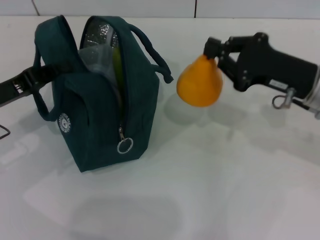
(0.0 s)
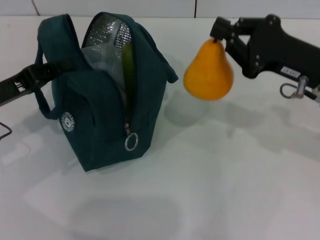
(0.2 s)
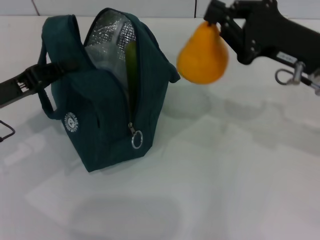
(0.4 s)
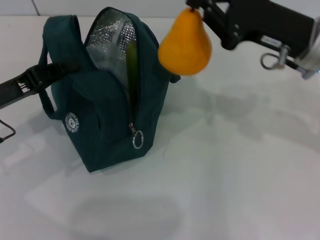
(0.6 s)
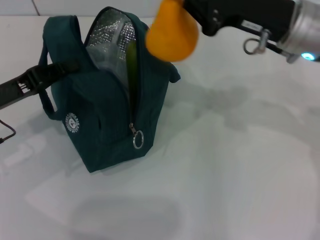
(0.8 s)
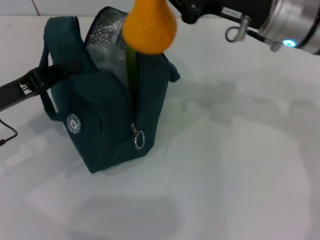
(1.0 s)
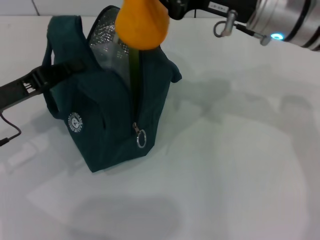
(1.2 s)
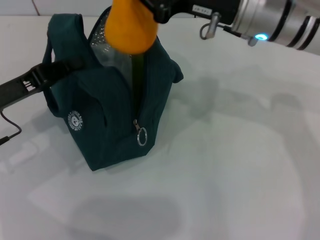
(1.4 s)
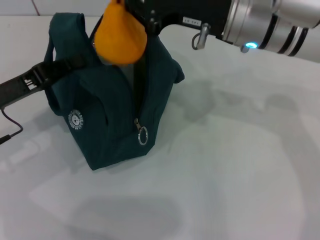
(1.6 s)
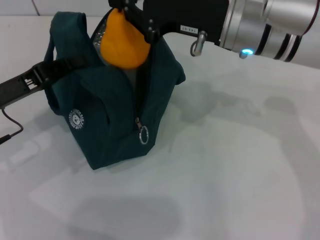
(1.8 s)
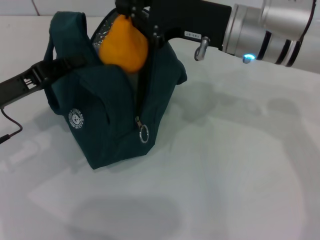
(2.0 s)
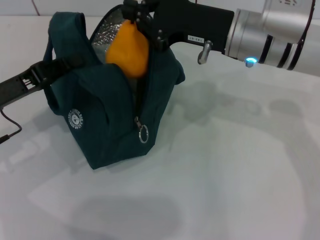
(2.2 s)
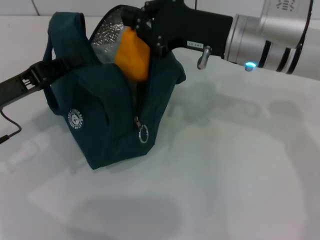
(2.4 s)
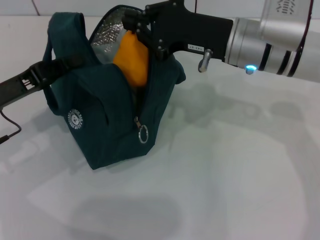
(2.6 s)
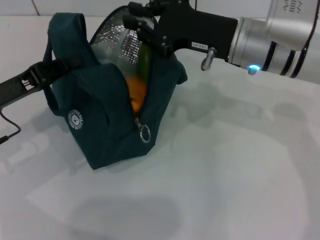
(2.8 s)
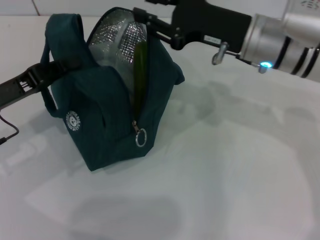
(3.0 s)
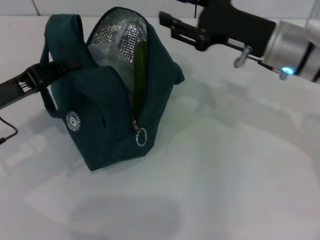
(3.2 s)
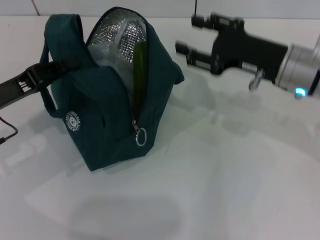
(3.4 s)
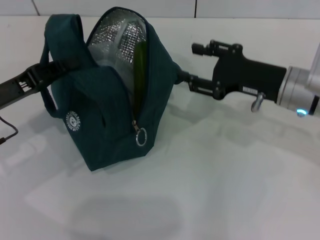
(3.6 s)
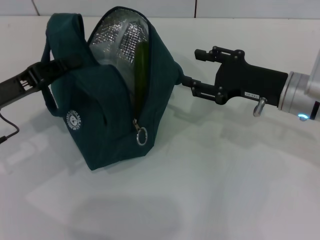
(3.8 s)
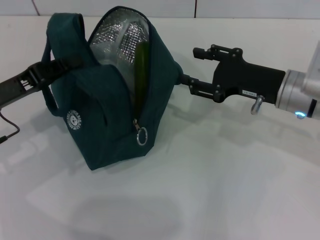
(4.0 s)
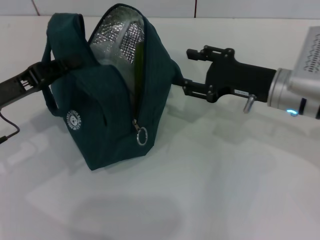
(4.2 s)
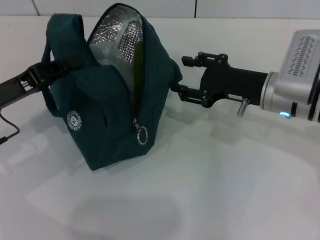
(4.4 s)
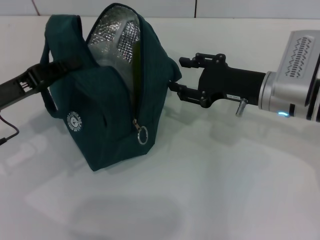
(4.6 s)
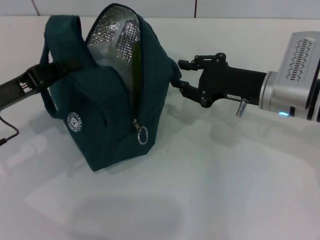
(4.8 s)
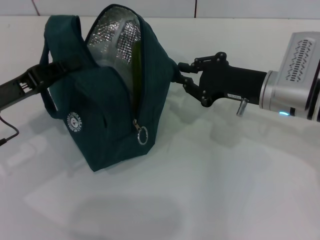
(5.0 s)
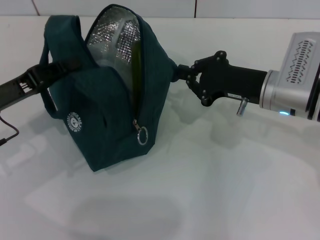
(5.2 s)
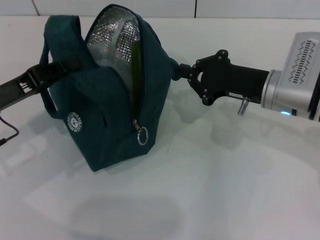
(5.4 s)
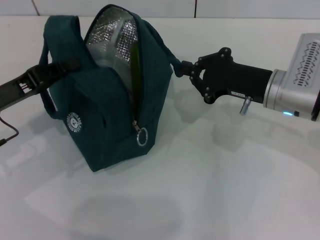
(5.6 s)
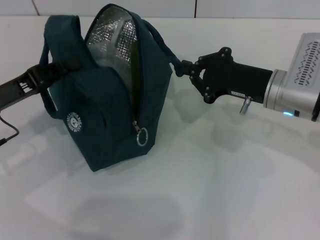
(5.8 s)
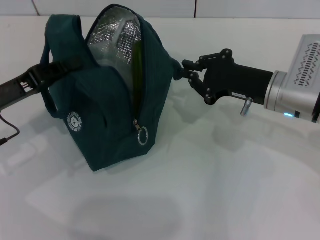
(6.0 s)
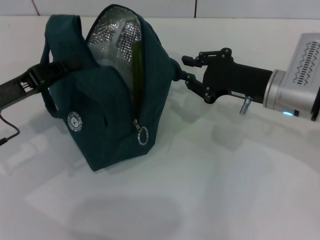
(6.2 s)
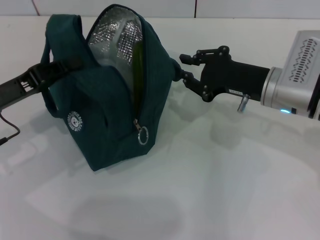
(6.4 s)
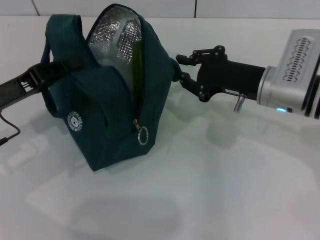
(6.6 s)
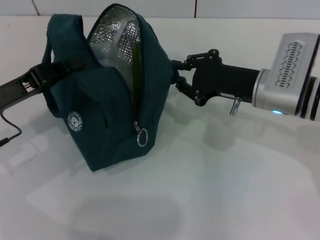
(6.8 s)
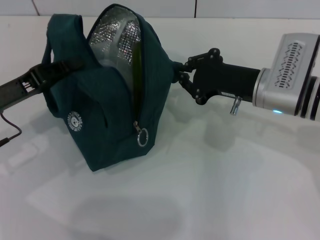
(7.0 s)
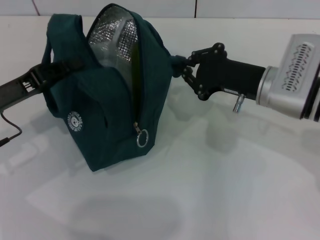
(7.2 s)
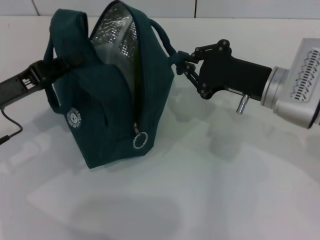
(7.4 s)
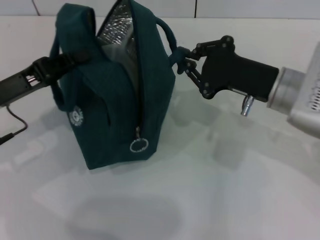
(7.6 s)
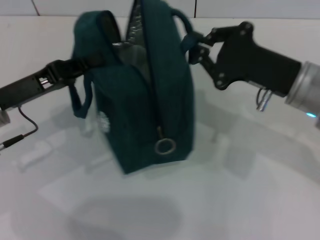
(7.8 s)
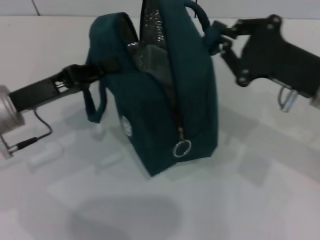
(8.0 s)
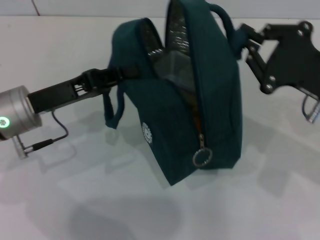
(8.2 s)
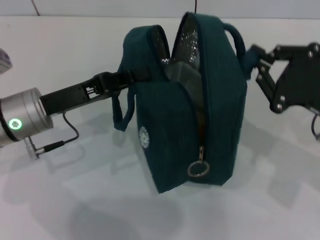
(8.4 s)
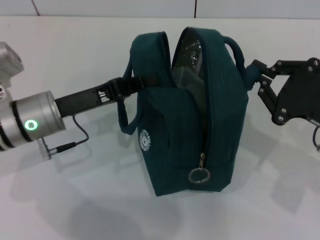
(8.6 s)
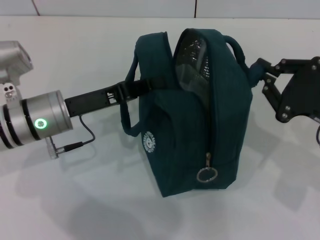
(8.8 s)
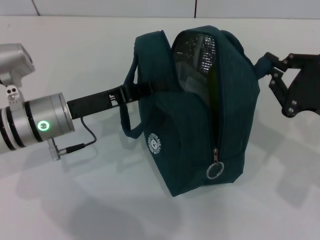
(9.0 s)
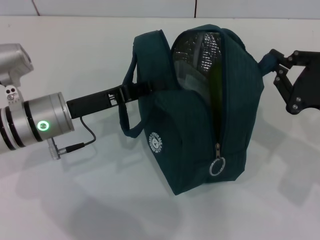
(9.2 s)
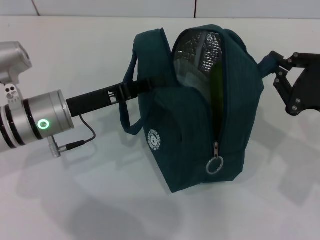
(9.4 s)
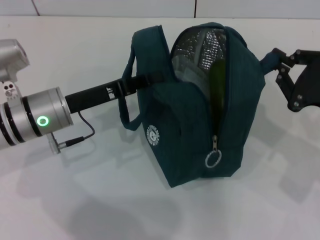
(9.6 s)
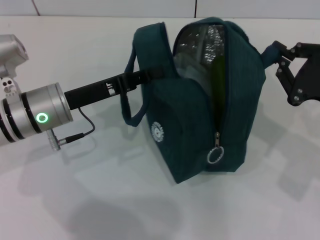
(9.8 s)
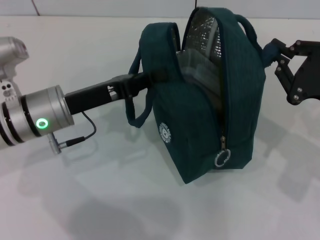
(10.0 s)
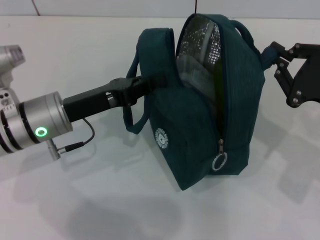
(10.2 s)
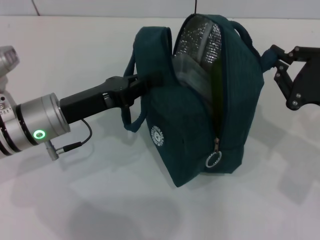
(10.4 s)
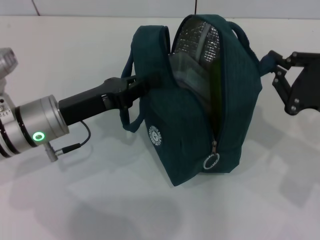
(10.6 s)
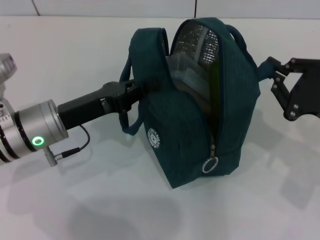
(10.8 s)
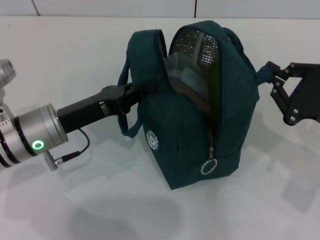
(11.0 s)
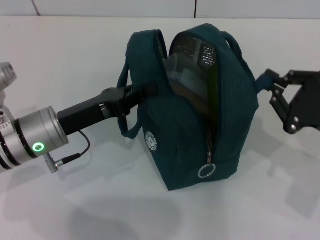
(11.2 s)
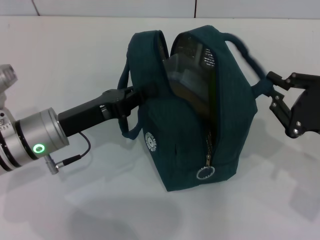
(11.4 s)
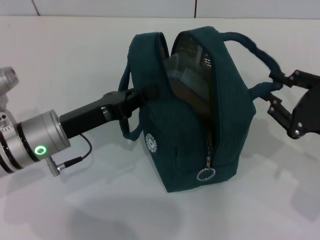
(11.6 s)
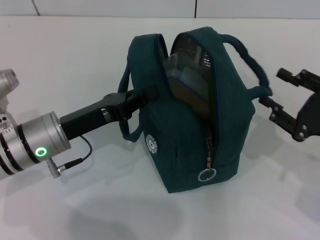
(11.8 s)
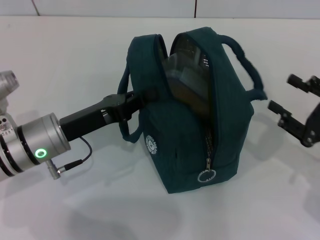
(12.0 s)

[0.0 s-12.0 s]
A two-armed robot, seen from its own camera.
0.0 to 1.6 s: The right gripper shifts roughly 15 cm to the left and upward.
1.6 to 3.0 s: There are only small adjustments of the grippers.
3.0 to 4.4 s: The right gripper goes about 5 cm downward, and opens up.
4.4 to 6.0 s: The right gripper closes.
6.0 to 7.6 s: The grippers move only a little.
7.6 to 9.0 s: The left gripper shifts roughly 10 cm to the right. Meanwhile the right gripper shifts some 10 cm to the right and backward.
9.0 to 10.4 s: There are only small adjustments of the grippers.
10.4 to 12.0 s: The right gripper shifts by approximately 5 cm, and opens up.

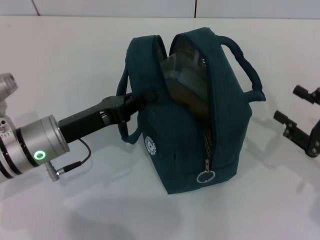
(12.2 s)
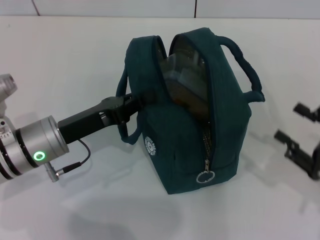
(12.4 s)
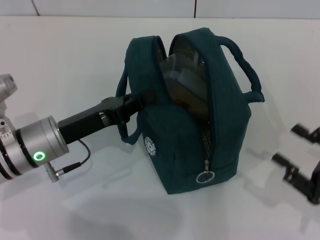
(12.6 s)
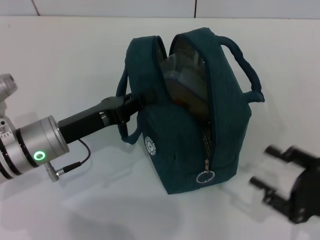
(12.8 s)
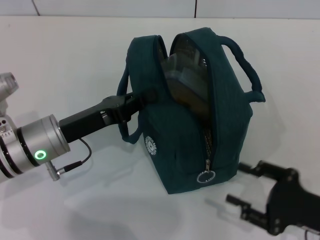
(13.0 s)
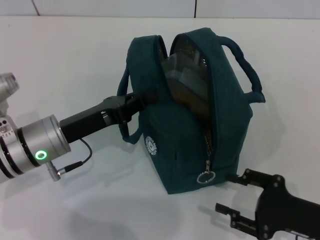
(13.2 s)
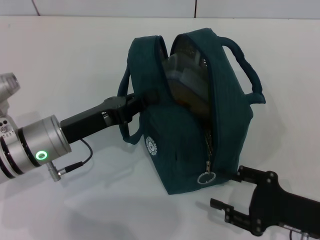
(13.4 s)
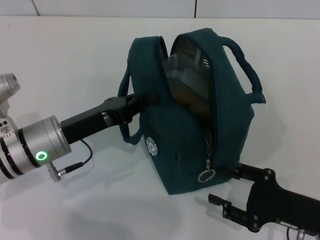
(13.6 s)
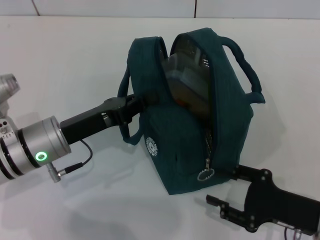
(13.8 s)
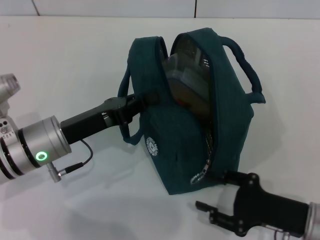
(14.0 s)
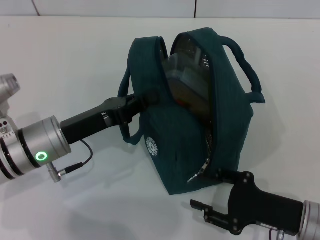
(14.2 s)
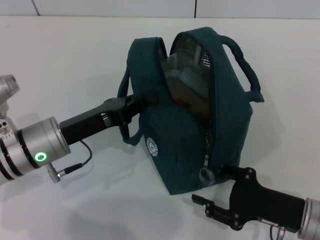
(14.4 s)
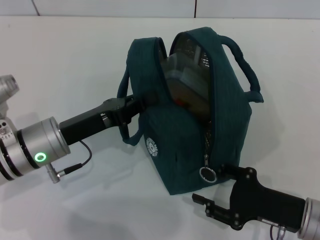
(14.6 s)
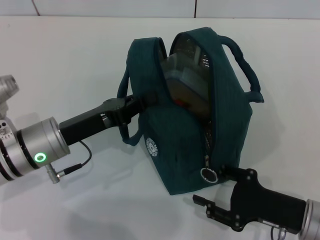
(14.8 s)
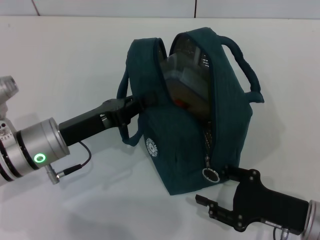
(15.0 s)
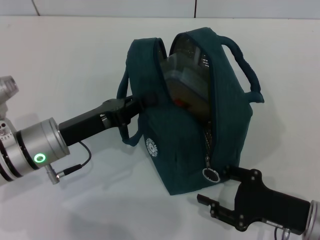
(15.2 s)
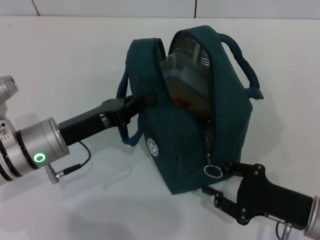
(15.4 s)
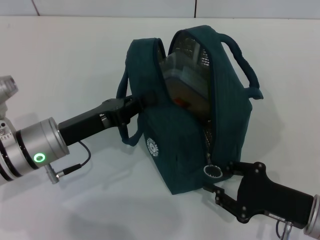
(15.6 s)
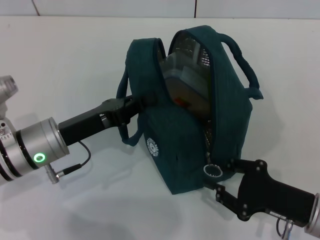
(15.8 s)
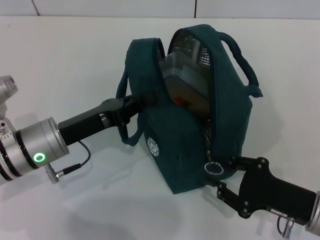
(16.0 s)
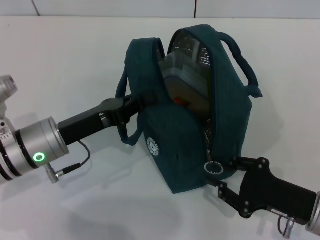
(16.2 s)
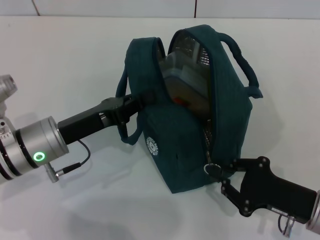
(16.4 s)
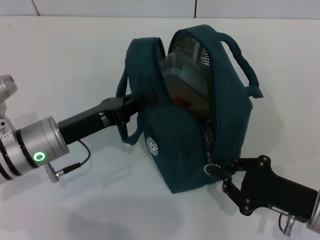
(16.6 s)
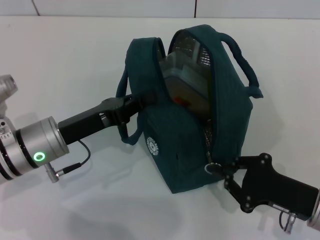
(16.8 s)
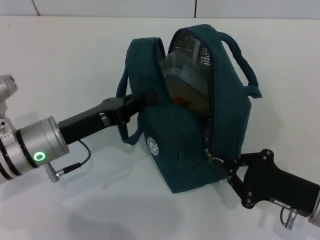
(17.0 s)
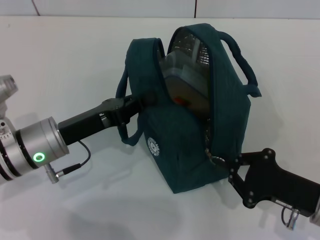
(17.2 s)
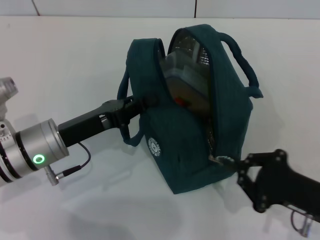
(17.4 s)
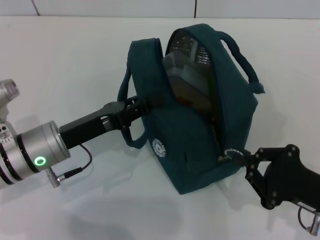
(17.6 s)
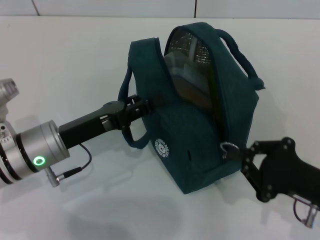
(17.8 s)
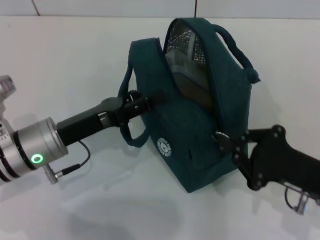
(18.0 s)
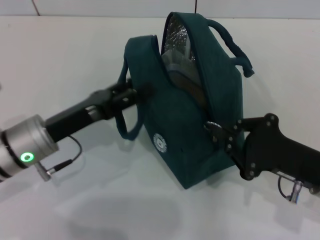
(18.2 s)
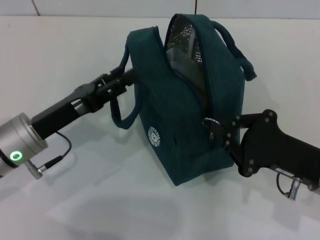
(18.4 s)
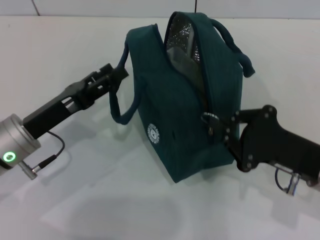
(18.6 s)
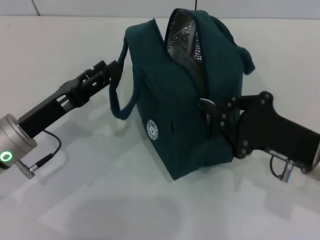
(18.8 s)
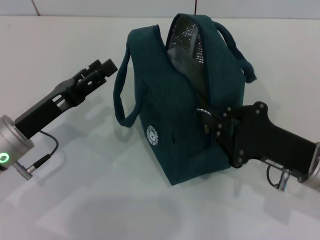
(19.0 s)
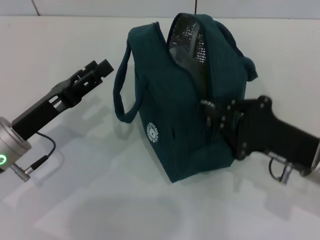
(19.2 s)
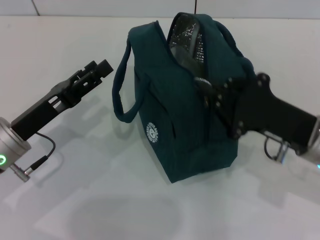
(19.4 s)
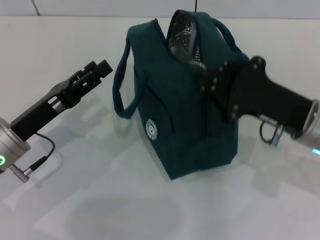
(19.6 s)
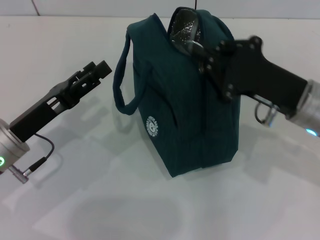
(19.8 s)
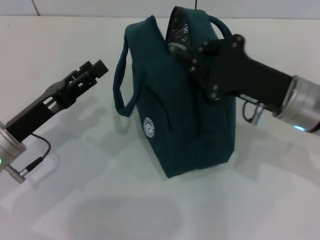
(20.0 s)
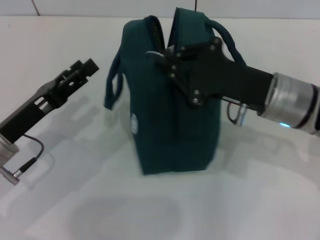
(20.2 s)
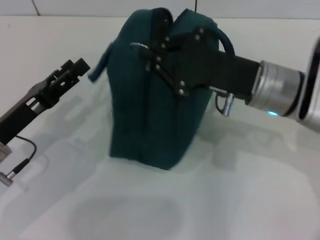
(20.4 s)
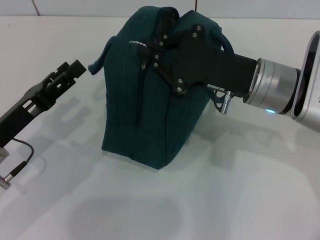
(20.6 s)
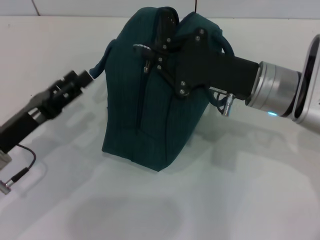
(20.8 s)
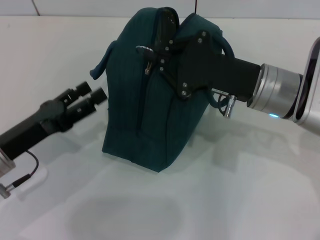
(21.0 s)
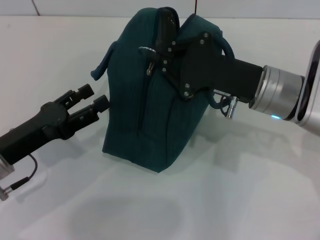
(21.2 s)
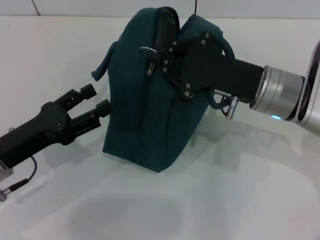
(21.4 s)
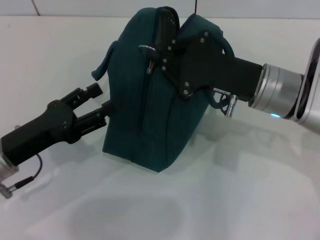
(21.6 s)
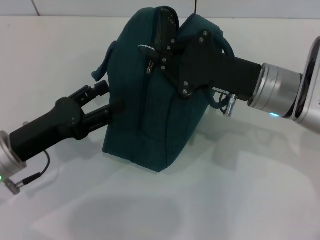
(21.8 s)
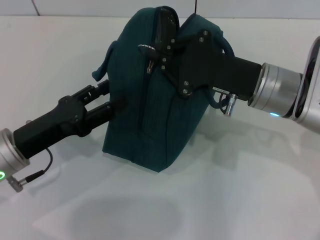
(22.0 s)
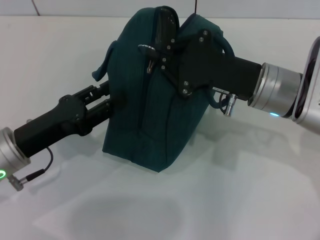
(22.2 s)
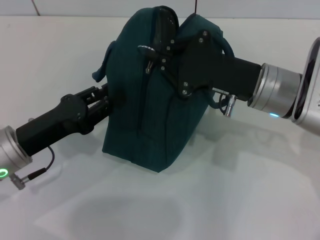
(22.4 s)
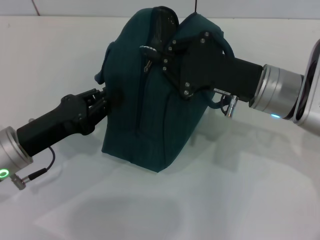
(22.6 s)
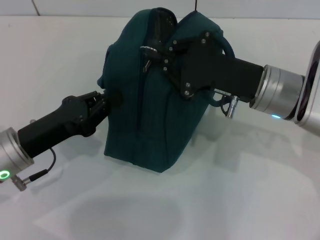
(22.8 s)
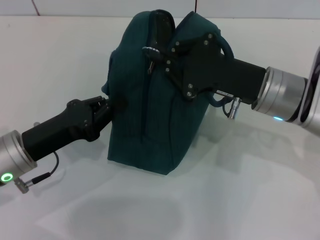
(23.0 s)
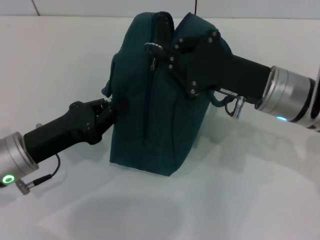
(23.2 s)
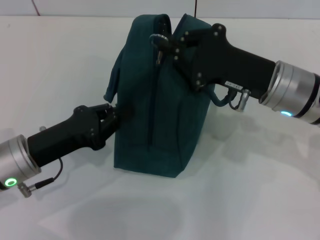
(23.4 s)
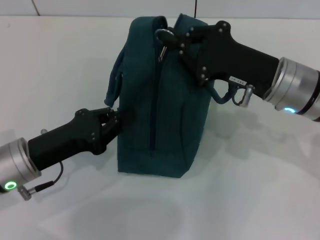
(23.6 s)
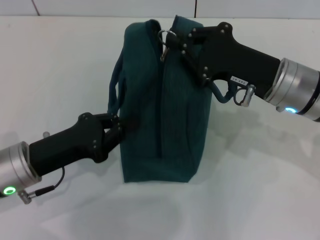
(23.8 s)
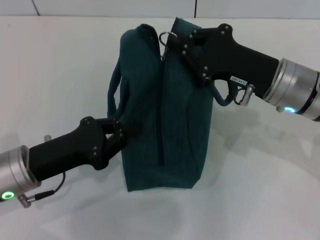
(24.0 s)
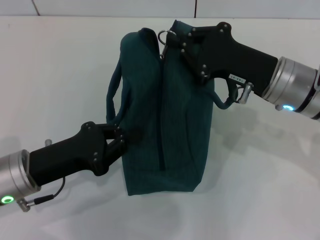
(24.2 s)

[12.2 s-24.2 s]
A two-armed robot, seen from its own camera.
Step, 12.4 to 19.0 s: Hold the lunch bag with your left hand.
12.2 to 13.8 s: The right gripper heads to the left, covering roughly 5 cm.
13.8 to 15.2 s: The grippers move only a little.
15.2 to 16.6 s: The right gripper closes up.
16.6 to 18.2 s: The left gripper opens its fingers. Meanwhile the right gripper moves about 5 cm.
18.2 to 19.8 s: The right gripper heads forward, covering about 5 cm.
19.8 to 21.2 s: The right gripper moves about 5 cm.
21.2 to 22.6 s: The left gripper closes its fingers.
22.6 to 24.2 s: The left gripper closes.
